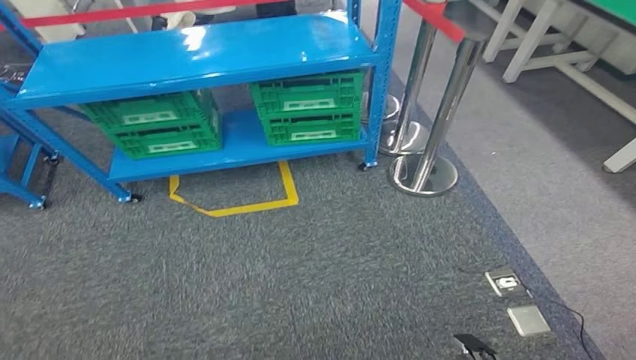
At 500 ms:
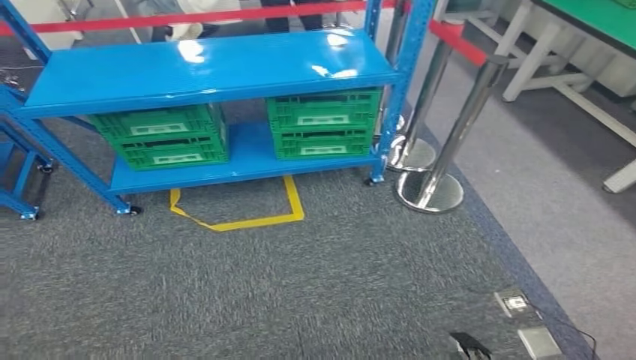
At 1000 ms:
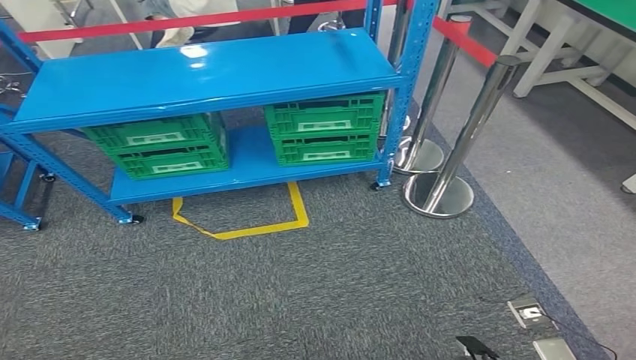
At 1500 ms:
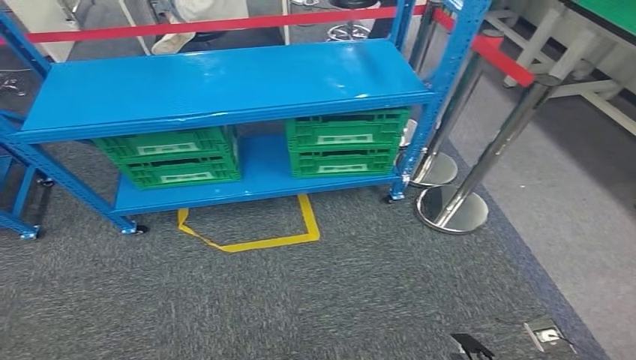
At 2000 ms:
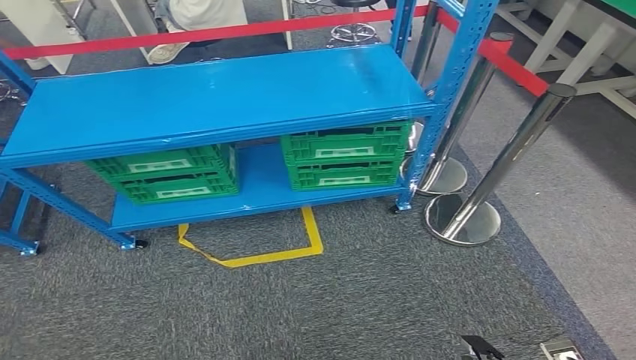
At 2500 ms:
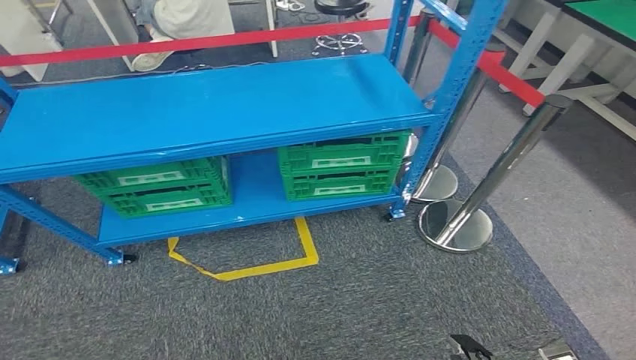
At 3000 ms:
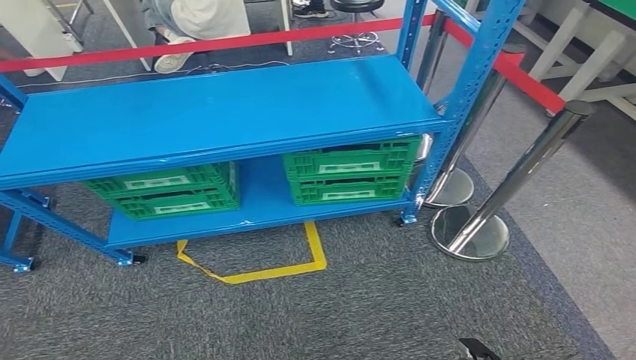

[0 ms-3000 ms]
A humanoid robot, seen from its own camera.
Step, 0 ms to 3000 ms: Return to the initial position at the workbench.
